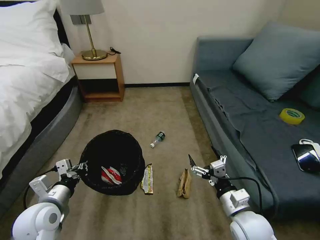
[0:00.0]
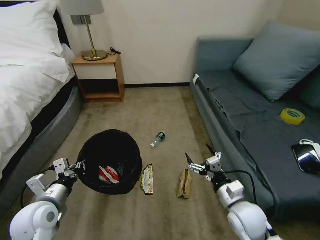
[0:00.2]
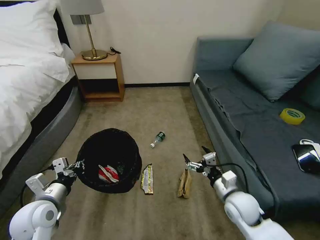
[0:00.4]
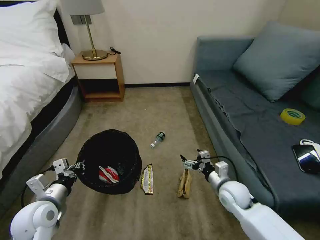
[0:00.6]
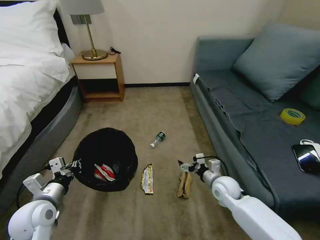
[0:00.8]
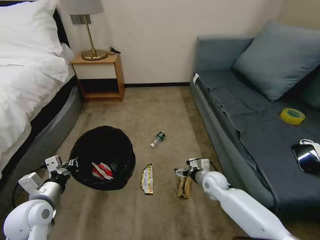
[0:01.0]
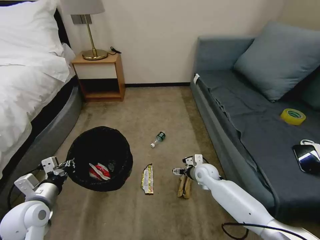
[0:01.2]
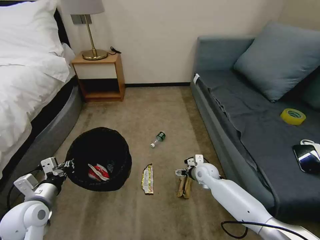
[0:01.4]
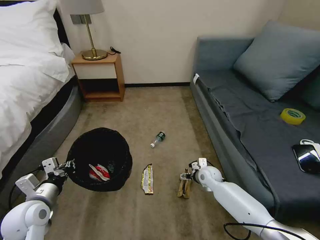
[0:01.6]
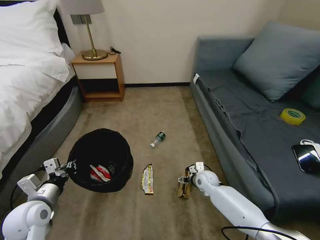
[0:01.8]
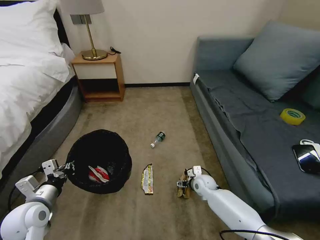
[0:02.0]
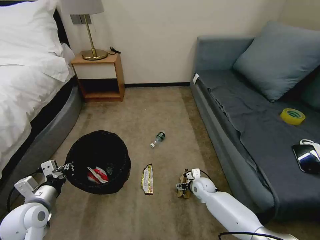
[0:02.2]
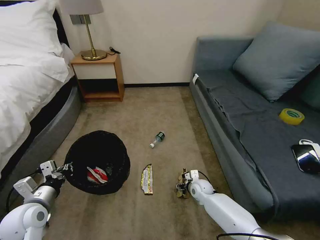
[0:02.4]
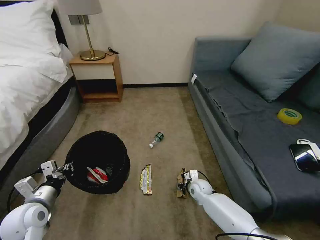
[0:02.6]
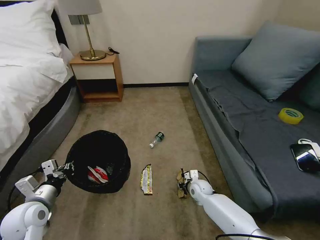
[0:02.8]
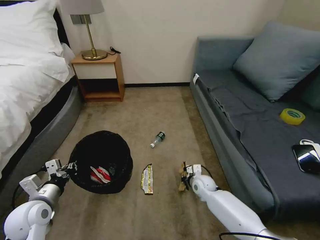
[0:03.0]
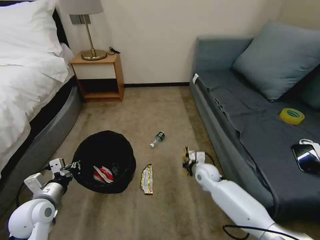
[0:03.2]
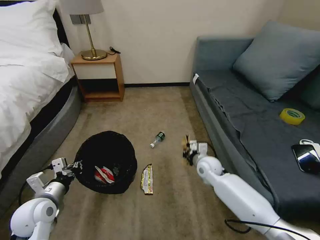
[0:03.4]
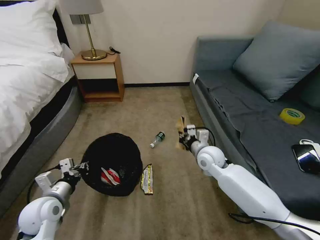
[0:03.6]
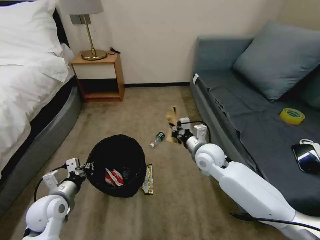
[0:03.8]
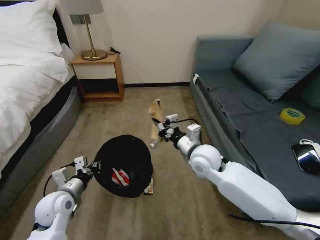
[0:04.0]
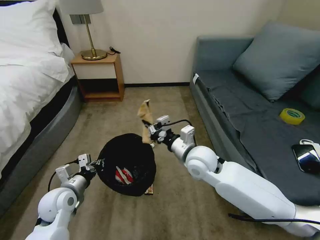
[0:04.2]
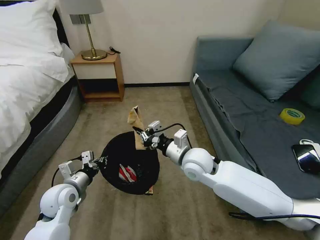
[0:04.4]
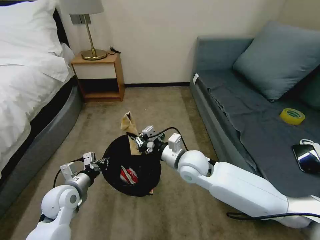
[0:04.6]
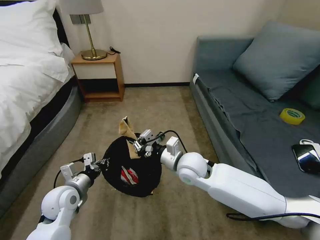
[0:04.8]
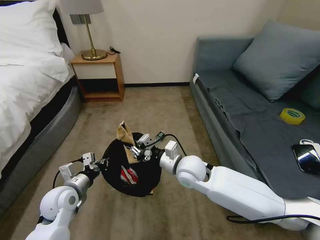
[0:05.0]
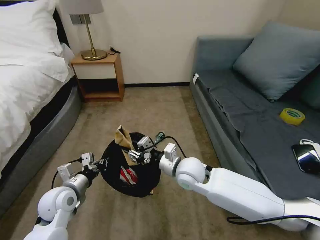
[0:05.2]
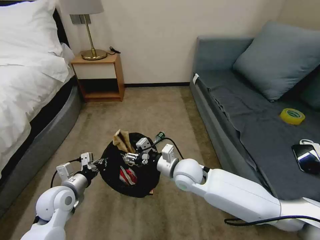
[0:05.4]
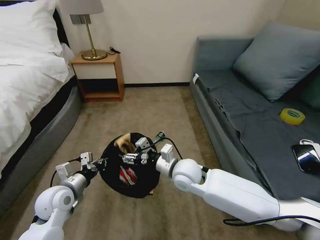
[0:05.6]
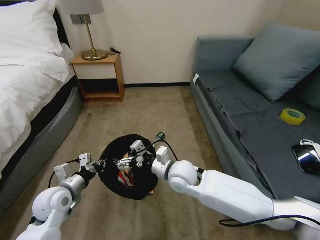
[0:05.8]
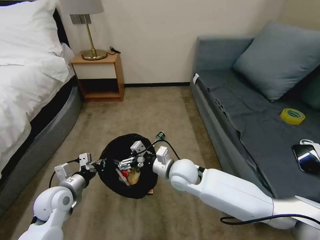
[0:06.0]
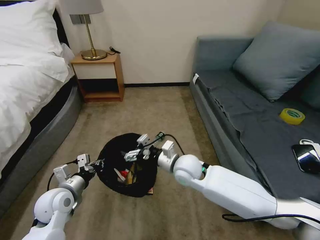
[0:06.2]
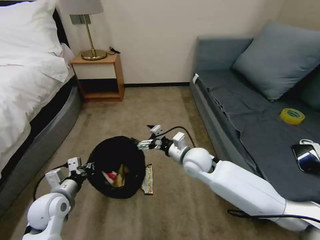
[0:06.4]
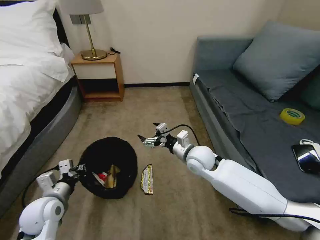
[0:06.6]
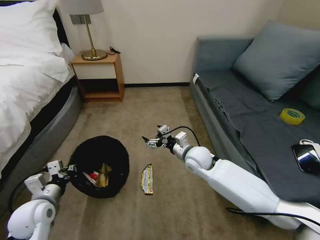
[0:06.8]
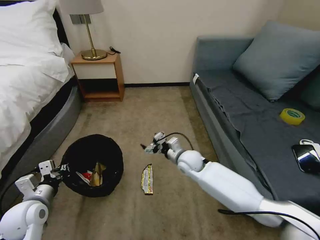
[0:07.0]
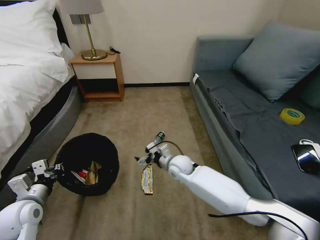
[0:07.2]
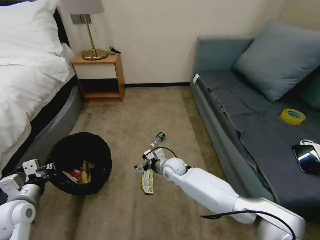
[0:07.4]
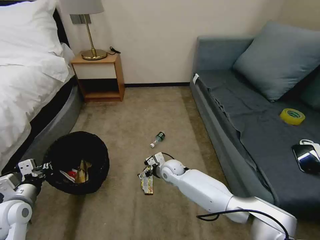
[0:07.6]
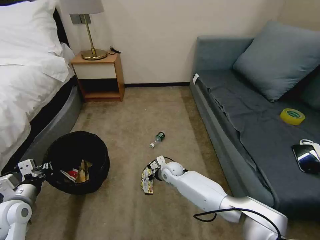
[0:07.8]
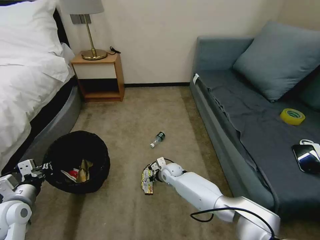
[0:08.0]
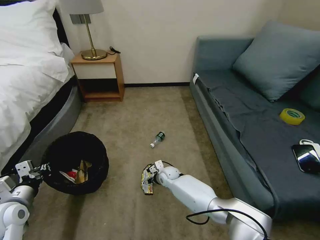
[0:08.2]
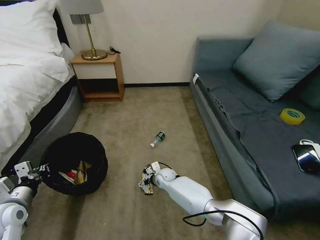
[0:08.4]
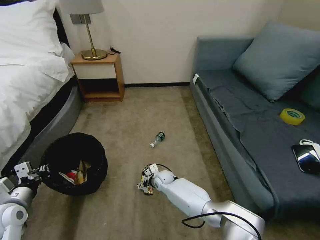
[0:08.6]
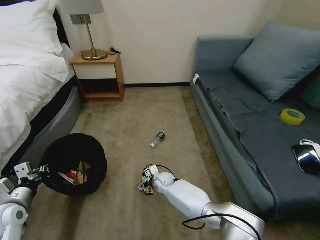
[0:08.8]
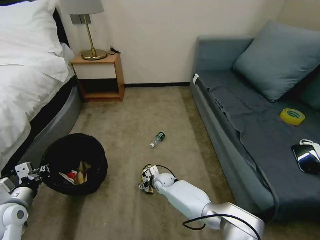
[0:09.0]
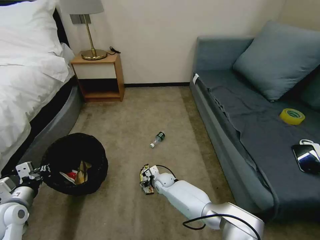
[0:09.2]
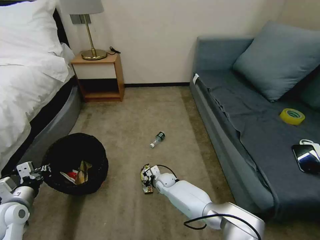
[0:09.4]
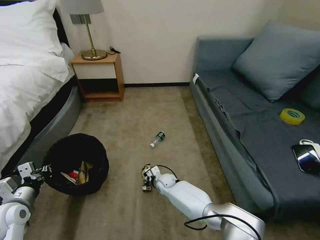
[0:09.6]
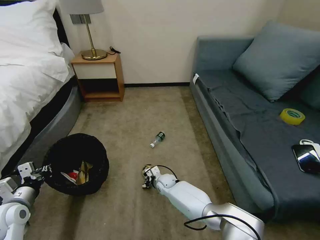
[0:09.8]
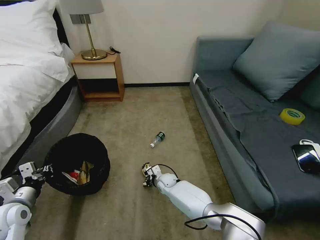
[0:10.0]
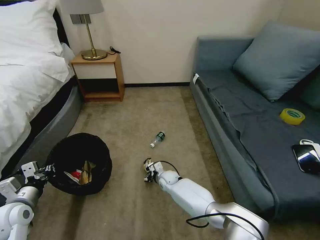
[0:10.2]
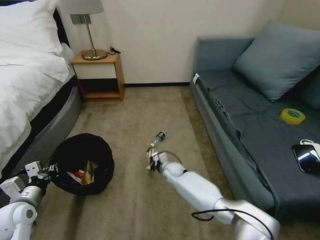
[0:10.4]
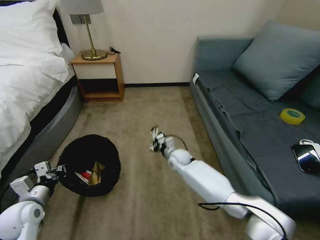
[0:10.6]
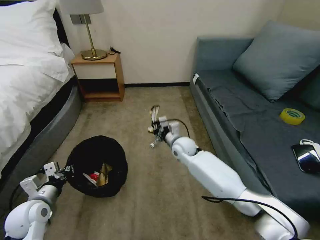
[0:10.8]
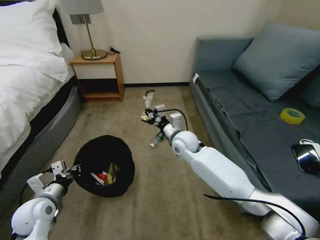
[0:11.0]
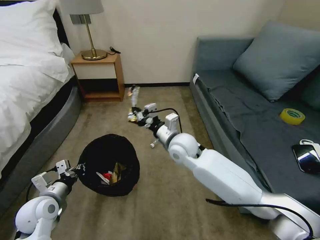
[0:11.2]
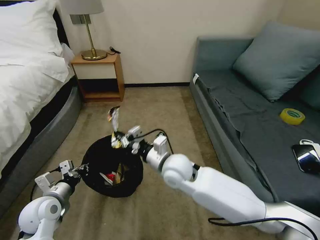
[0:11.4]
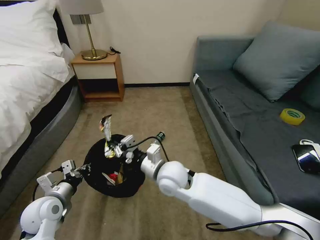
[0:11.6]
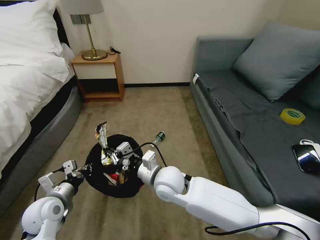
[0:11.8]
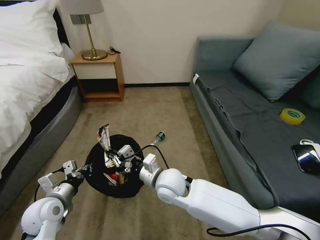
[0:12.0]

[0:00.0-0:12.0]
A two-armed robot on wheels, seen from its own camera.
Task of the whole recording: Pick up the trash bin, then pick up the garbage on the floor and place it into the trash bin.
0:00.0 to 0:01.6: The right gripper goes roughly 25 cm forward and downward.
0:01.6 to 0:03.0: The right gripper moves about 5 cm, and closes up.
0:03.0 to 0:04.4: The left gripper goes about 10 cm to the right and forward; the right gripper travels upward by approximately 25 cm.
0:04.4 to 0:06.0: The right gripper travels downward by roughly 5 cm, and opens up.
0:06.0 to 0:07.6: The left gripper travels to the left and backward by some 10 cm. The right gripper is displaced downward and forward by some 15 cm.
0:07.6 to 0:09.0: The right gripper goes some 10 cm downward.
0:09.0 to 0:10.4: The right gripper shifts by about 5 cm, and closes up.
0:10.4 to 0:12.0: The left gripper moves to the right, some 10 cm; the right gripper goes some 25 cm upward and backward.

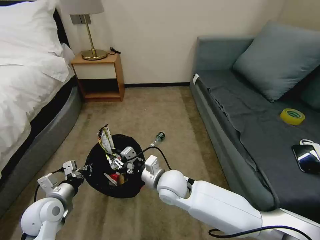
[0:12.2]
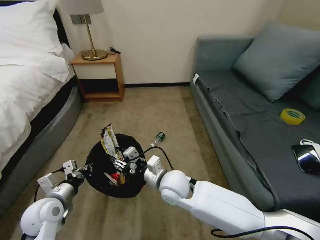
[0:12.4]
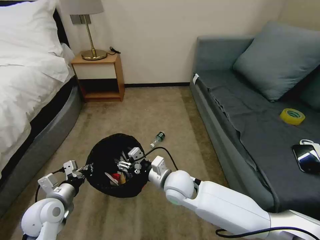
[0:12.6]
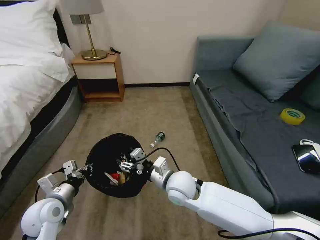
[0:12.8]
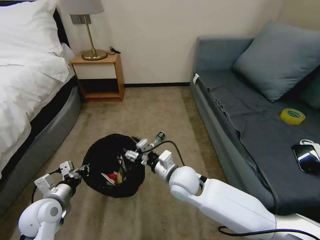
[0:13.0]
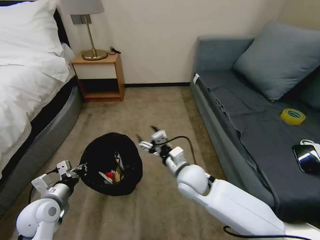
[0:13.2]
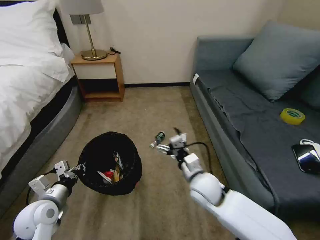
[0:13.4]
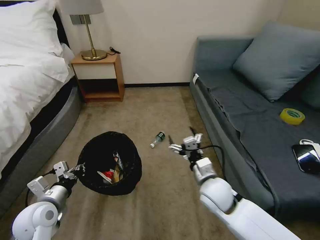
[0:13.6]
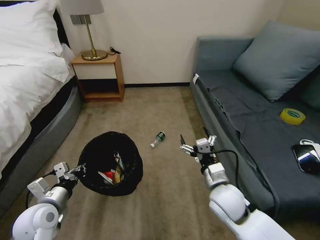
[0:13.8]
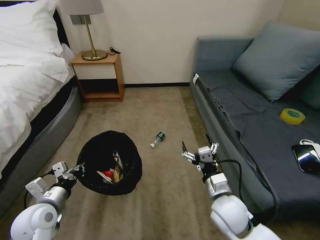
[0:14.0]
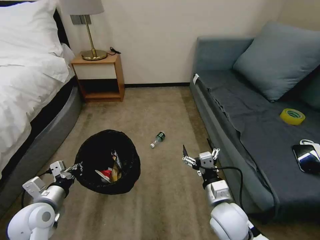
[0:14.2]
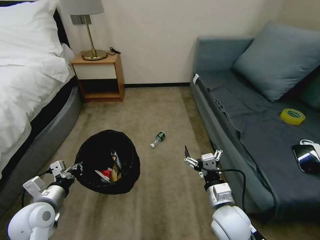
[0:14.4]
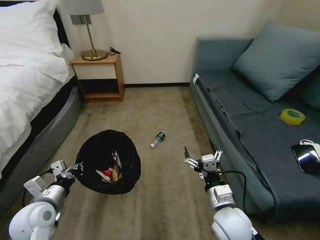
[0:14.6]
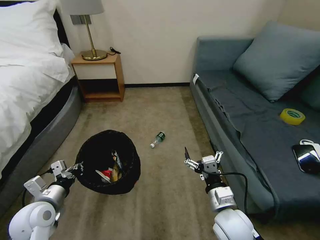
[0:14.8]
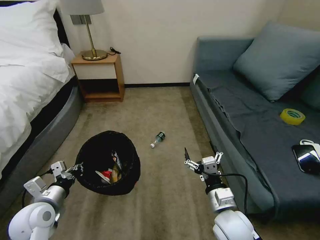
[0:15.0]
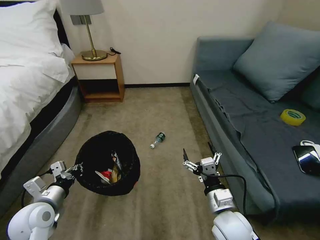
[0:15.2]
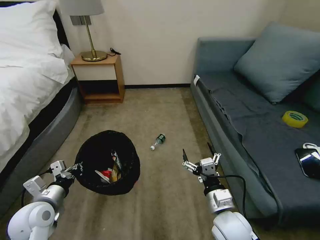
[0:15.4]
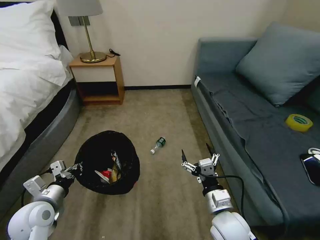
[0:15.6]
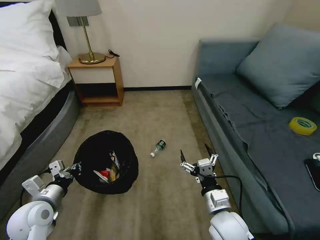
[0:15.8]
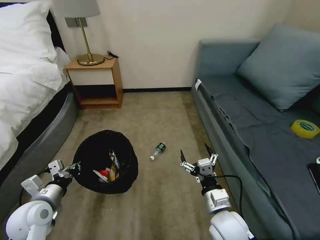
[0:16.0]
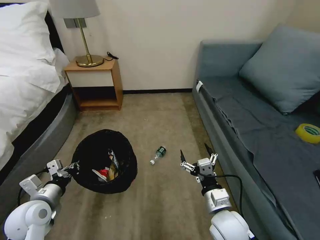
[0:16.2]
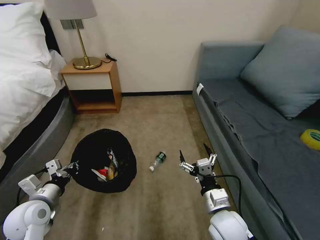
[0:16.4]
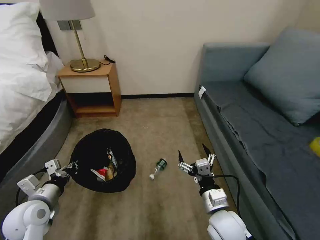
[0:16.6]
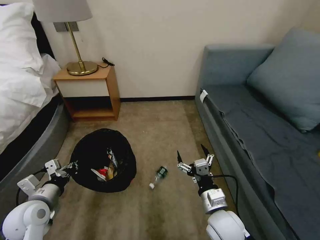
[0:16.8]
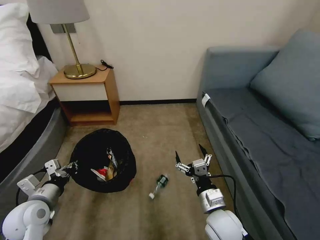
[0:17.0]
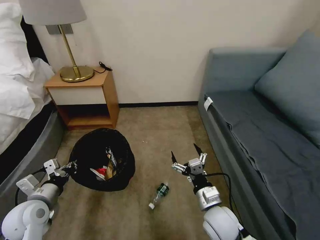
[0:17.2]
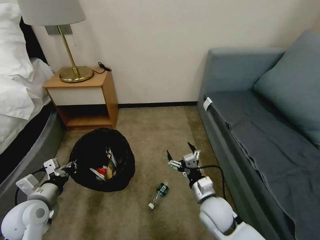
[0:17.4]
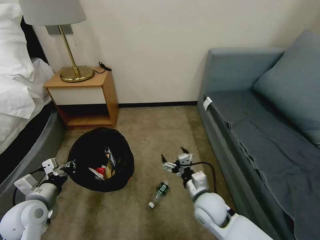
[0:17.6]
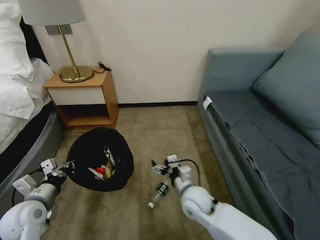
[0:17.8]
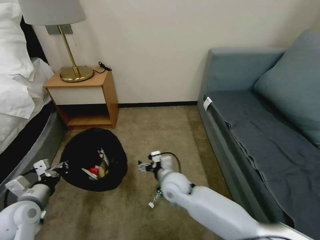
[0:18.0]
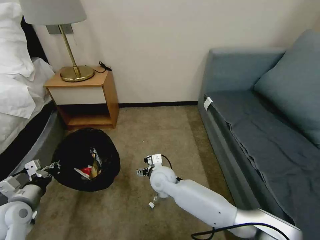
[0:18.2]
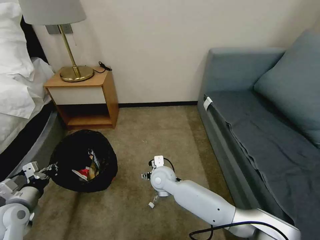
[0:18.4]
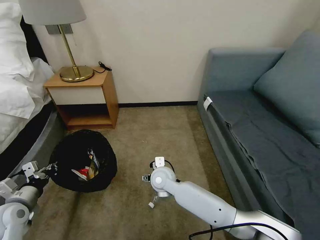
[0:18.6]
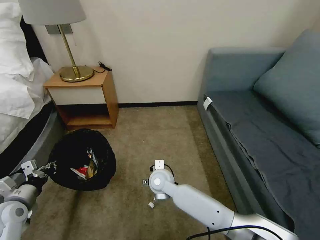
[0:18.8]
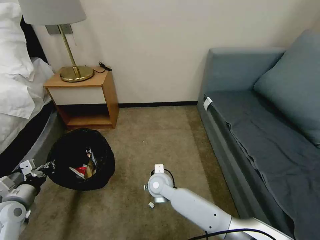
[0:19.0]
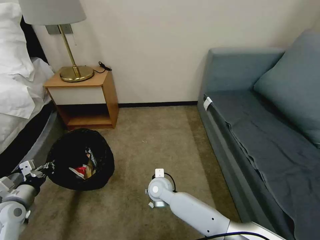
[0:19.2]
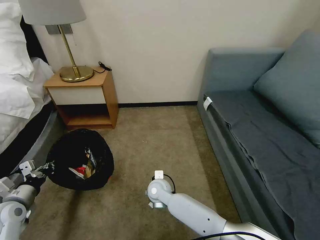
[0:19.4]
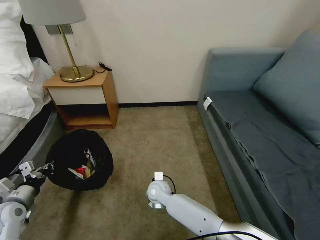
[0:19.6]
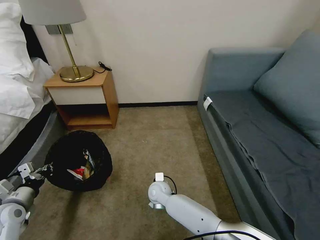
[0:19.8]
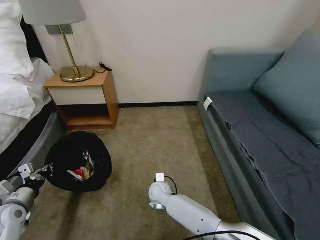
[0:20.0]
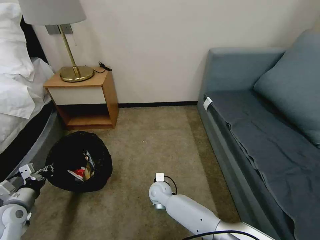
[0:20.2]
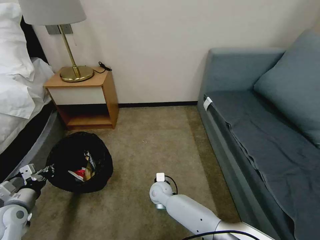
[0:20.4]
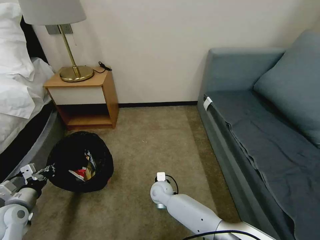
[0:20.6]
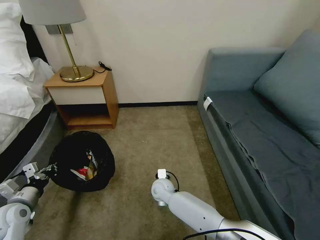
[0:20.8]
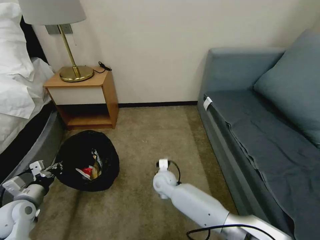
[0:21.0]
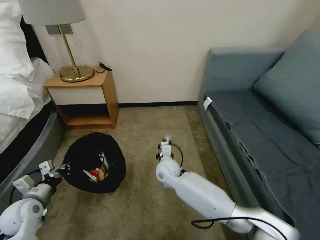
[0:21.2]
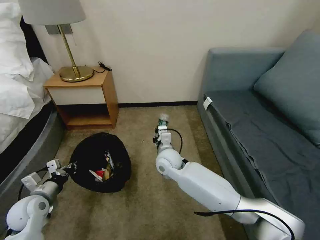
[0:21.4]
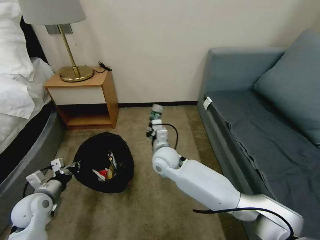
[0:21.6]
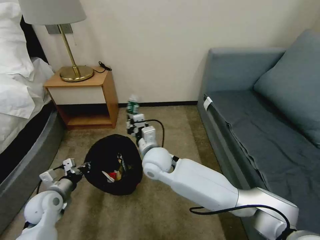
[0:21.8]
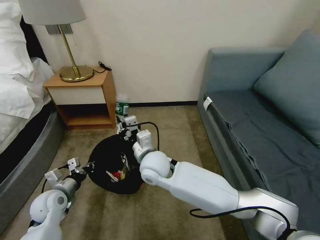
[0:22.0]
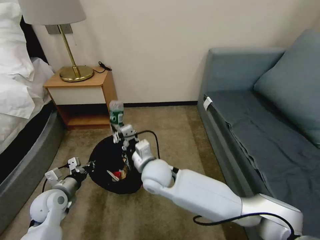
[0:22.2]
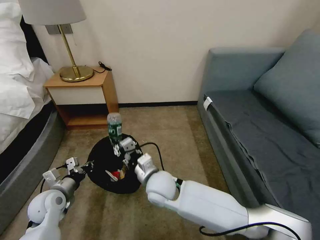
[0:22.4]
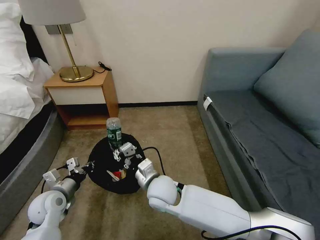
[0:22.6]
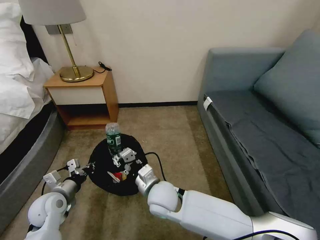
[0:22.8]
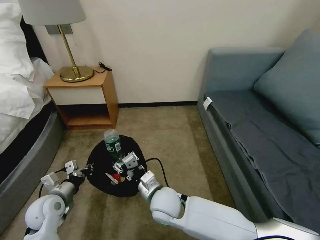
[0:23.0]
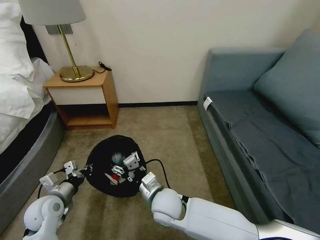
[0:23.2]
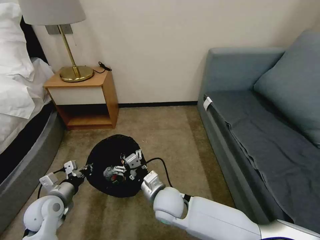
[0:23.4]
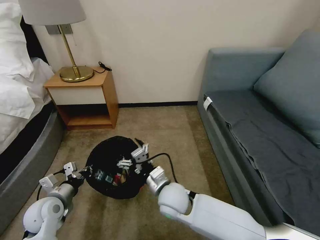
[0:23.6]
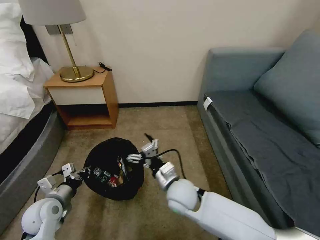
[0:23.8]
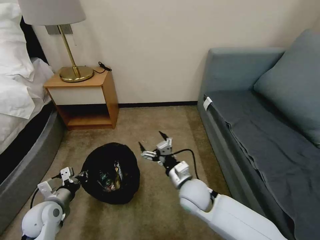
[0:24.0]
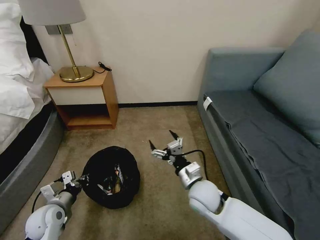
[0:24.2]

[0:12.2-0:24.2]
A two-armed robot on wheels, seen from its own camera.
Task of the whole recording: Pick up the trash bin, then pick up the garbage on the floor and place it into the trash bin.
0:12.2 to 0:13.8: The right gripper heads to the right, covering approximately 15 cm, and opens.
0:13.8 to 0:15.2: The right gripper is displaced backward by some 5 cm.
0:16.6 to 0:18.2: The right gripper travels to the left and forward by some 25 cm; the left gripper travels to the left by some 5 cm.
0:18.2 to 0:19.8: The right gripper shifts about 10 cm downward.
0:19.8 to 0:21.2: The right gripper moves upward, some 10 cm, and closes up.
0:21.2 to 0:22.6: The right gripper travels backward and upward by roughly 15 cm; the left gripper is displaced to the right by about 5 cm.
0:22.6 to 0:24.2: The right gripper is displaced to the right by roughly 15 cm, and opens its fingers.
